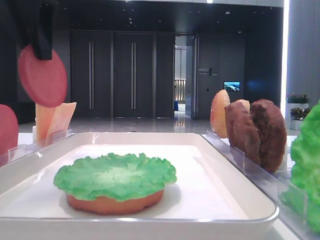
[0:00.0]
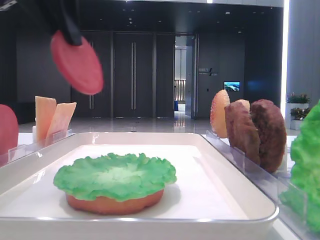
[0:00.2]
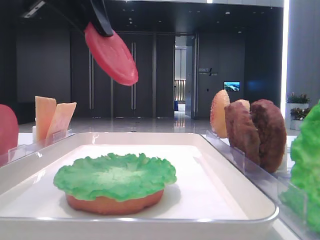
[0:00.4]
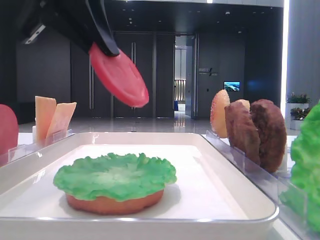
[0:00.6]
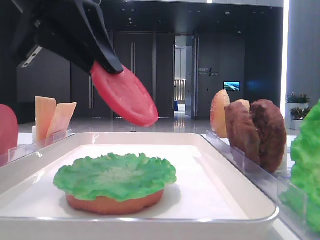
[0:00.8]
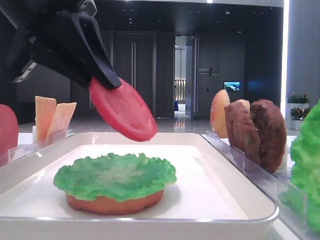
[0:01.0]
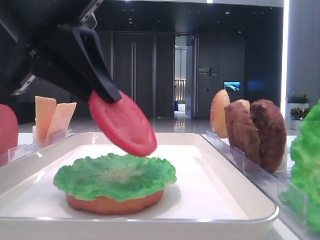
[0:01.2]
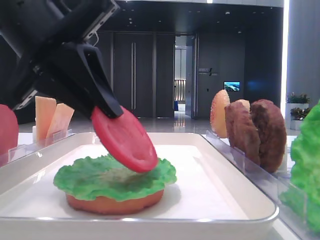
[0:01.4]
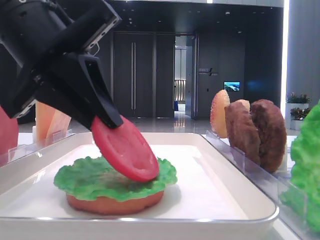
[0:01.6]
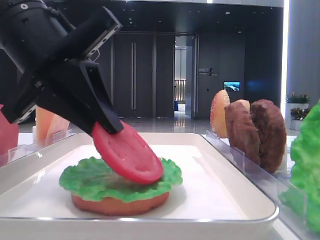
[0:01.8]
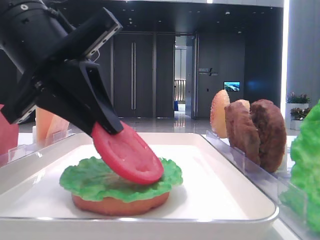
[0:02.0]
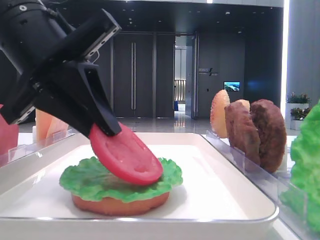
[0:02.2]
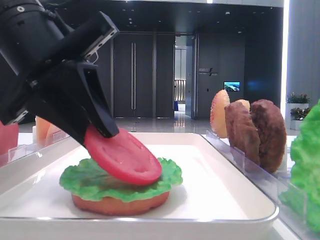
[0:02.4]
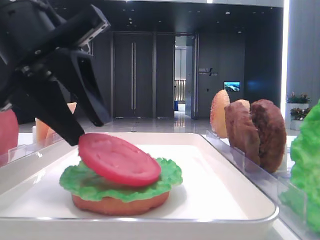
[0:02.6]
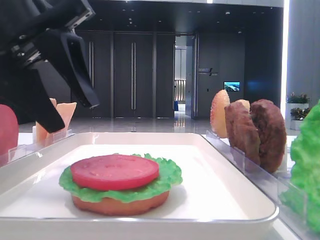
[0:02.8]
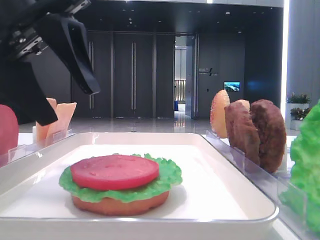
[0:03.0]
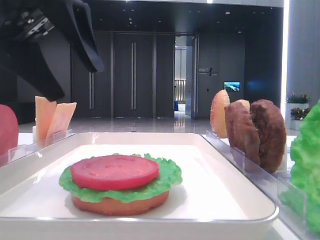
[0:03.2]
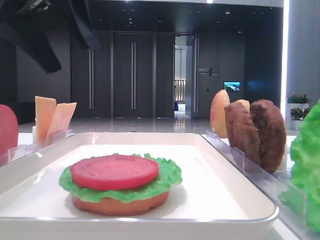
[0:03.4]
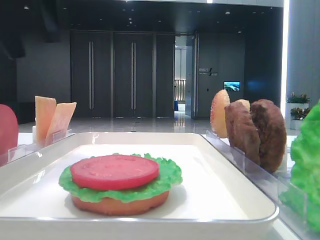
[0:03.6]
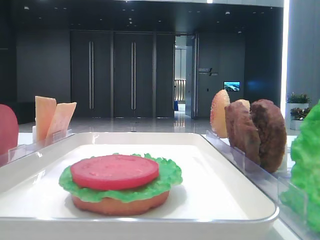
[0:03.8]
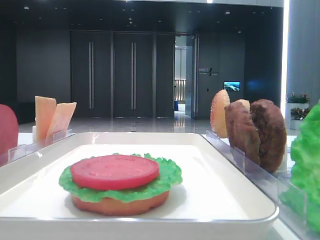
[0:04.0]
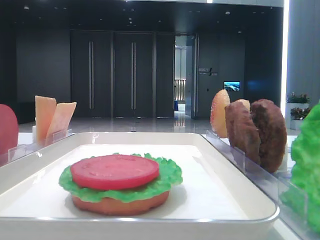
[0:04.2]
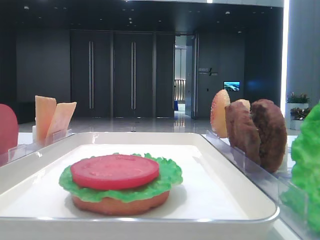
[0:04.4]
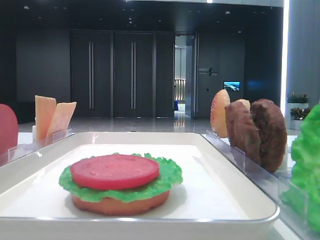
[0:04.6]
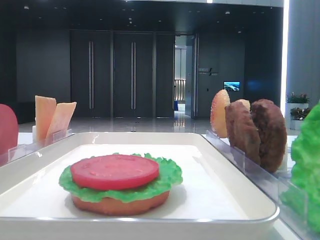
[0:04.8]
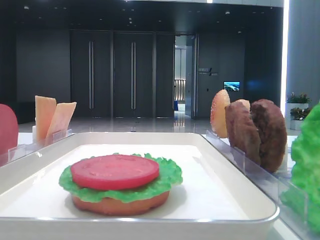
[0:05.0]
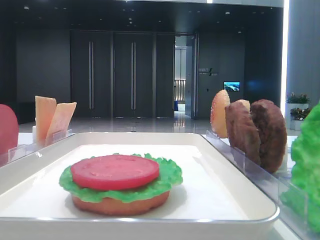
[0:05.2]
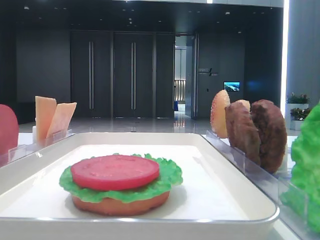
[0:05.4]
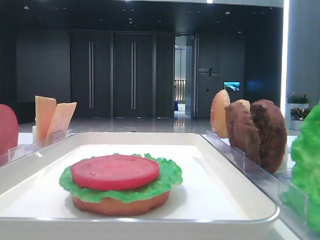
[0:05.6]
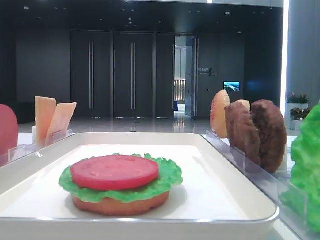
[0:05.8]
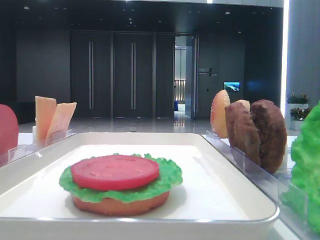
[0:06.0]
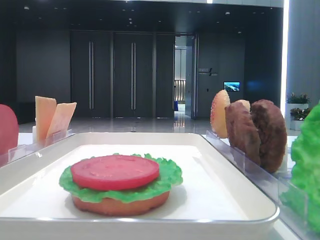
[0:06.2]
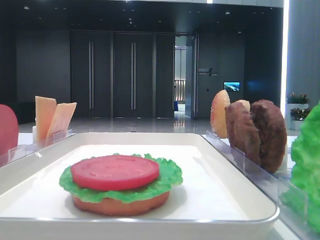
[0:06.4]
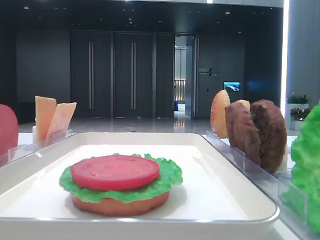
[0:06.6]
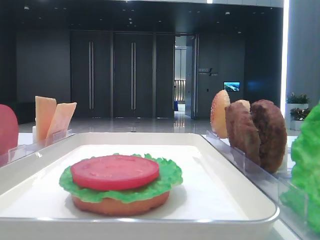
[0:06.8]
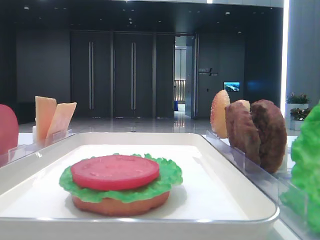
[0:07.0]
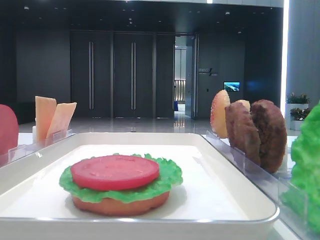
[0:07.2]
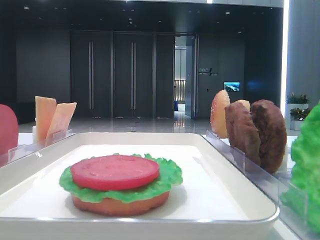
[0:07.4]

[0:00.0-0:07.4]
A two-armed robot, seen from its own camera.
Step, 0.0 to 2.6 s: Place the tomato slice on the lettuce leaf with the left hand.
0.0 to 1.4 s: The left gripper shifts some 10 cm downward.
1.4 to 3.0 s: The left gripper opens up.
3.0 to 4.4 s: The left gripper heads to the left and upward, covering some 20 cm.

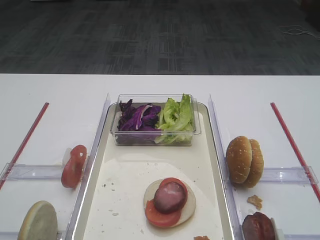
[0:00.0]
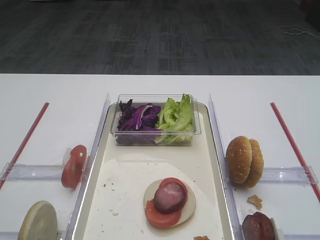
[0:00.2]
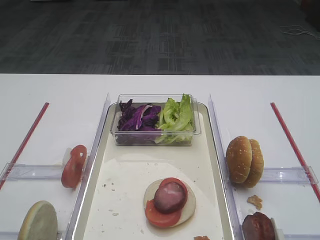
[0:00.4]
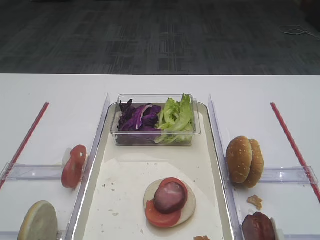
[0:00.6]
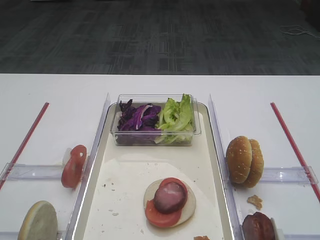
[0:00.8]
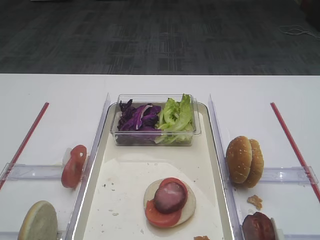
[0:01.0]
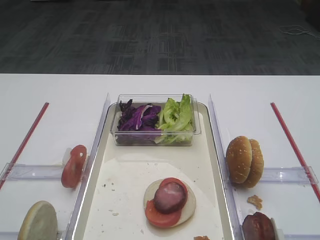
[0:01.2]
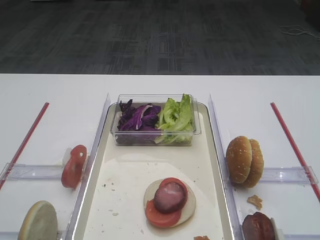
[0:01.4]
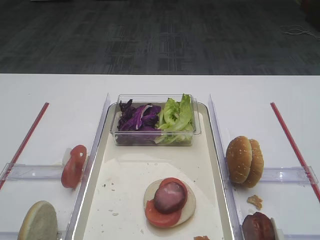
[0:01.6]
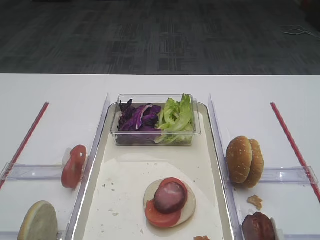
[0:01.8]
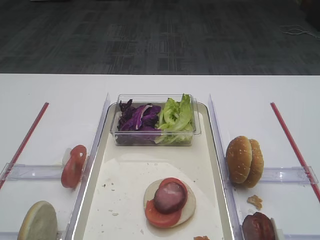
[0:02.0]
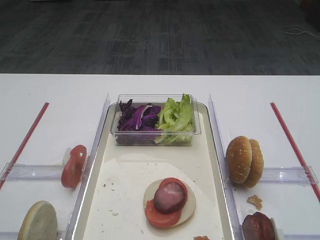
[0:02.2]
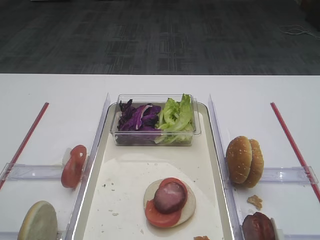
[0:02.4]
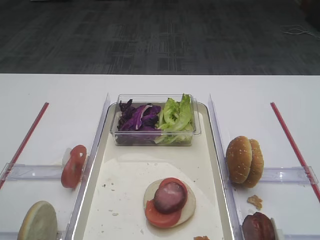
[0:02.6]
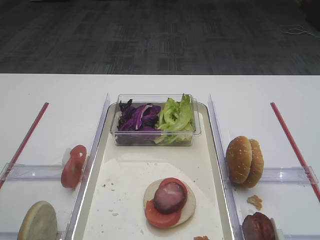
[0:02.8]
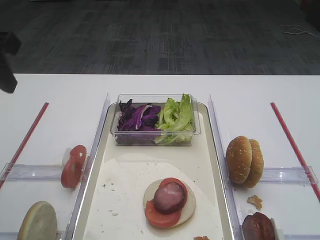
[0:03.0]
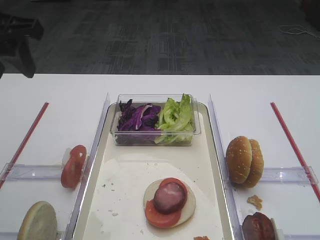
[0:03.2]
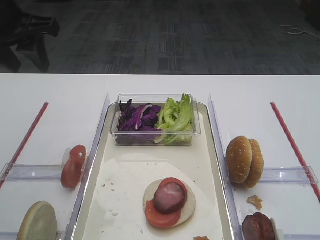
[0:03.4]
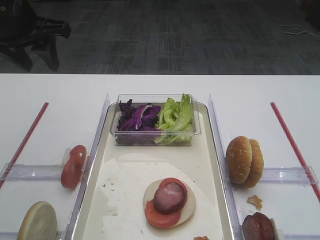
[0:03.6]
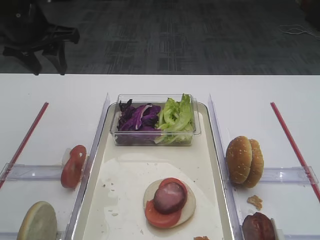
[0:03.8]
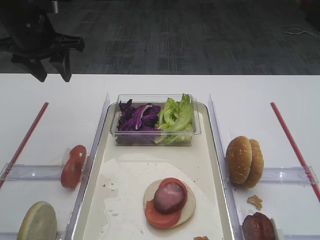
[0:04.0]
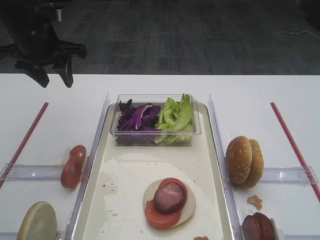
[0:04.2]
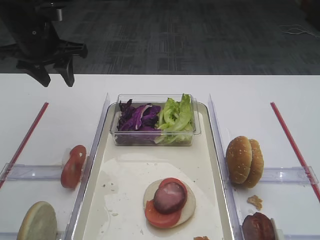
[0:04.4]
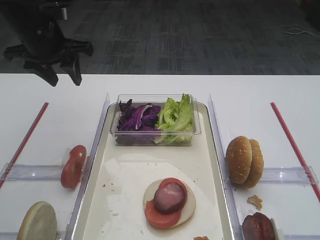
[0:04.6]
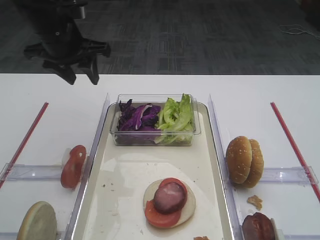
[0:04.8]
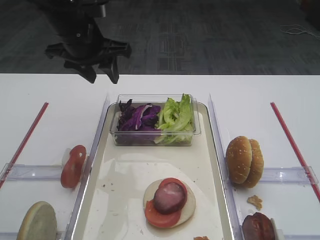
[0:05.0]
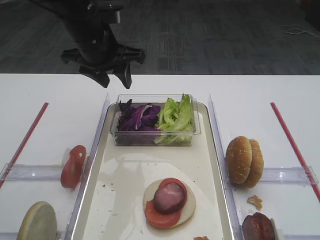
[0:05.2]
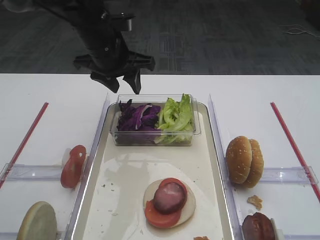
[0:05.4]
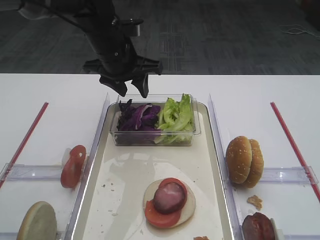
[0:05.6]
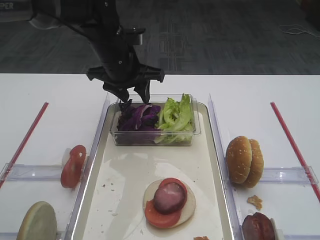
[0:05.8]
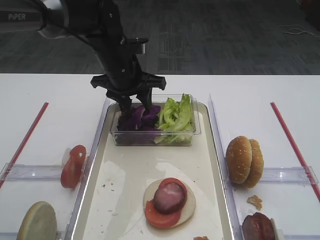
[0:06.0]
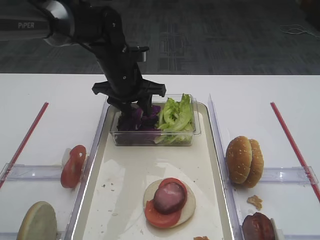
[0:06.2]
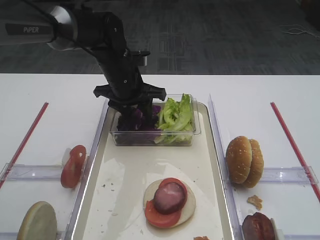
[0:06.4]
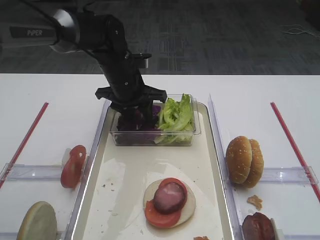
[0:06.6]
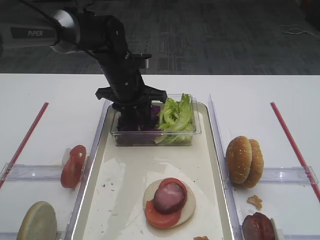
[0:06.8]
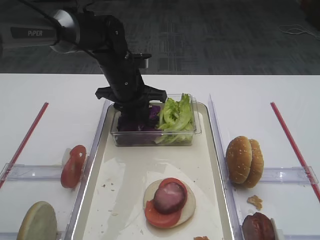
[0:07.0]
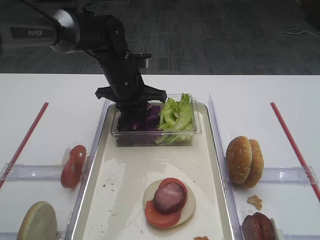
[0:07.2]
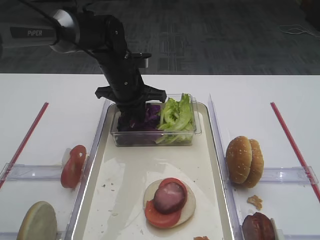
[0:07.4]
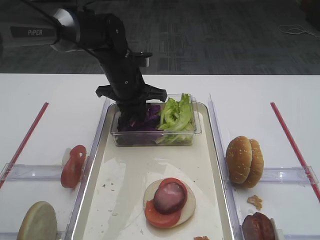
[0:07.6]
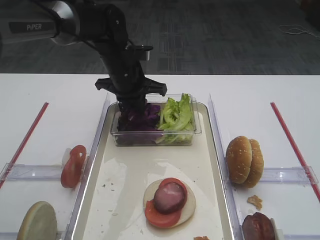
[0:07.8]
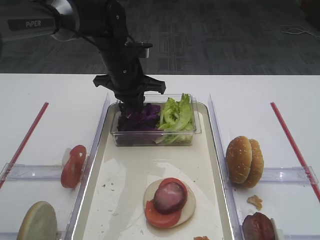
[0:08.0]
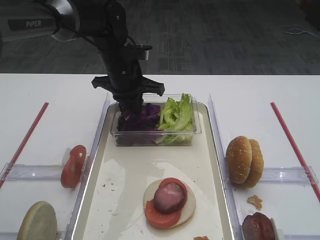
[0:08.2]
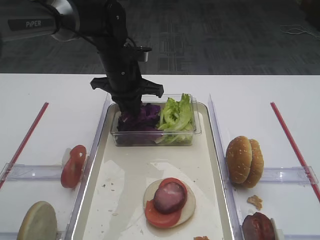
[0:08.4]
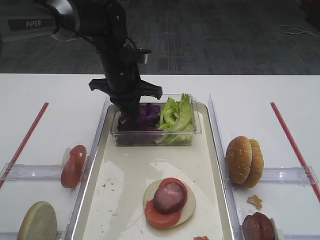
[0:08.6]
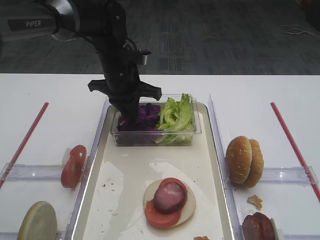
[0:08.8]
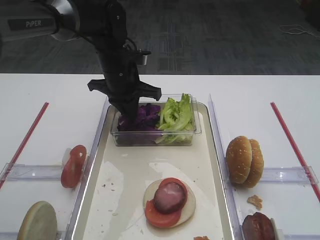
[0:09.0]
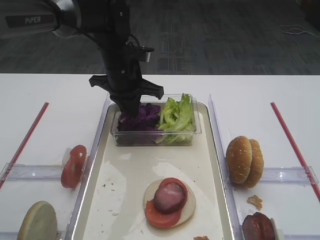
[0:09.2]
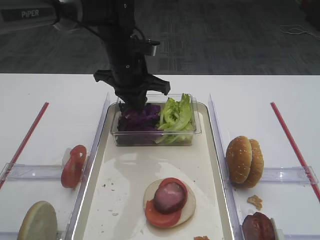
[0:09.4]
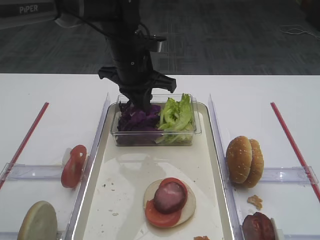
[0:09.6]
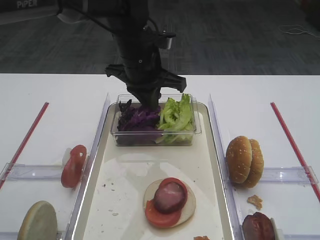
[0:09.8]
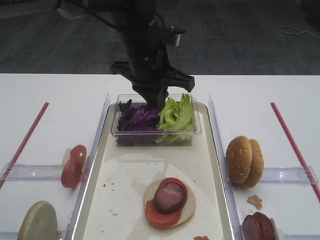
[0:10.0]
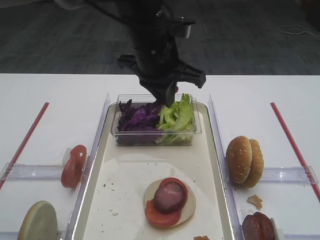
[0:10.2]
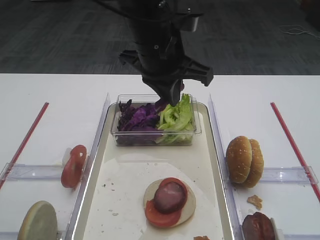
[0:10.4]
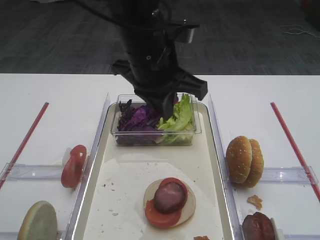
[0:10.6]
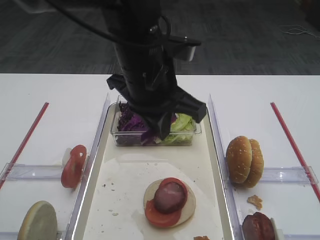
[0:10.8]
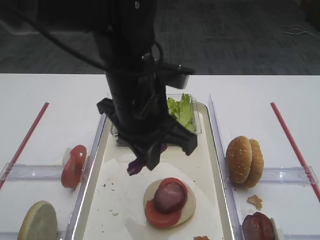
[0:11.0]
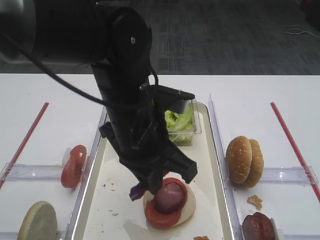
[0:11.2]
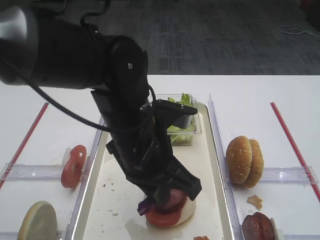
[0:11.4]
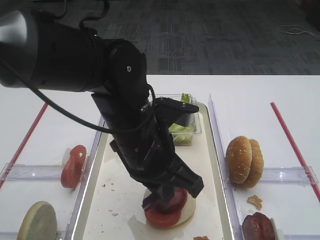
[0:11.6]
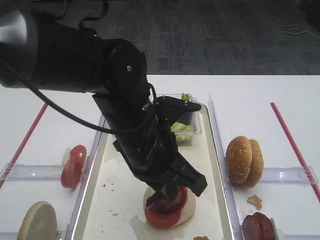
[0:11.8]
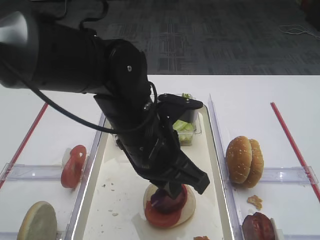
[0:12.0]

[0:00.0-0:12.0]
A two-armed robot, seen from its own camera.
Step, 0.0 to 10.2 s: Pick up the purple cabbage with the left gripper.
1.6 to 3.0 s: The left gripper heads forward, covering about 25 cm.
3.0 to 4.4 s: The left gripper goes about 20 cm forward and downward.
4.4 to 6.0 s: The left gripper goes about 15 cm to the right and downward.
6.0 to 7.6 s: The left gripper closes.
7.6 to 9.0 s: There are only small adjustments of the grippers.
9.0 to 10.4 s: The left gripper travels upward, backward and to the right by approximately 15 cm.
10.4 to 12.0 s: The left gripper travels backward and downward by about 15 cm.

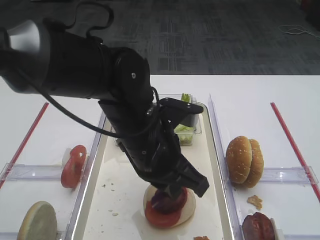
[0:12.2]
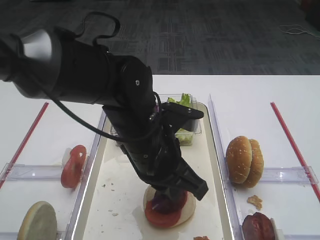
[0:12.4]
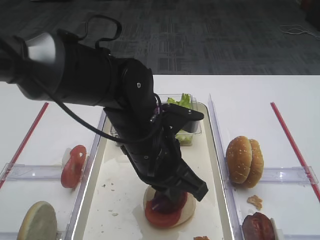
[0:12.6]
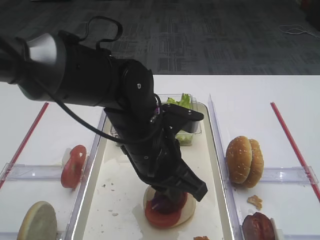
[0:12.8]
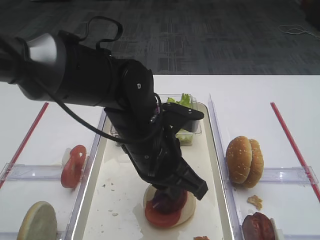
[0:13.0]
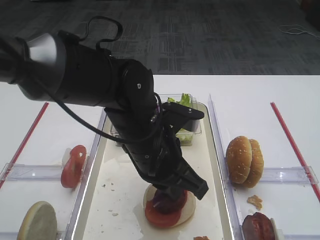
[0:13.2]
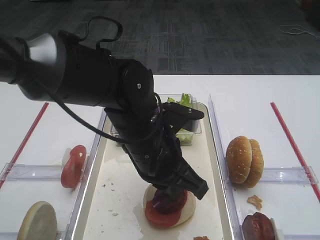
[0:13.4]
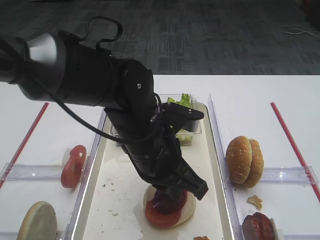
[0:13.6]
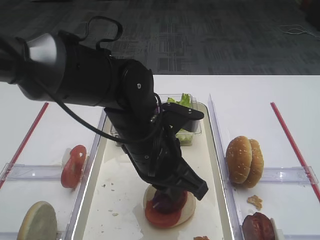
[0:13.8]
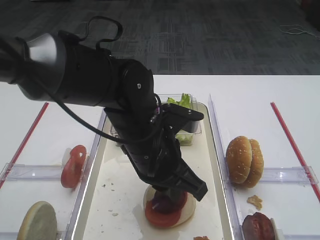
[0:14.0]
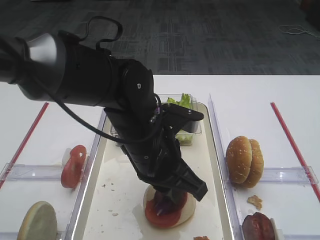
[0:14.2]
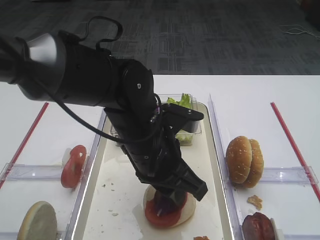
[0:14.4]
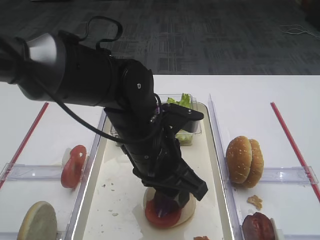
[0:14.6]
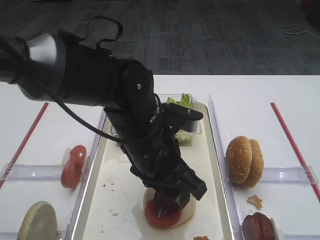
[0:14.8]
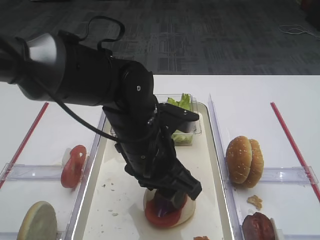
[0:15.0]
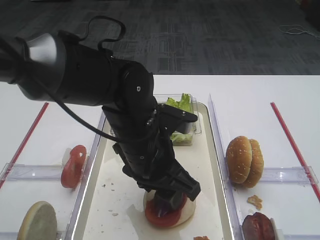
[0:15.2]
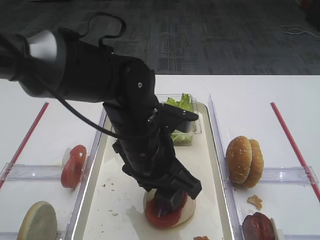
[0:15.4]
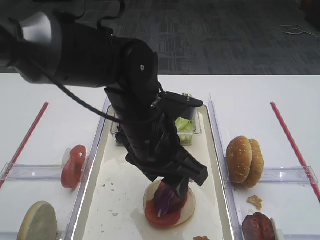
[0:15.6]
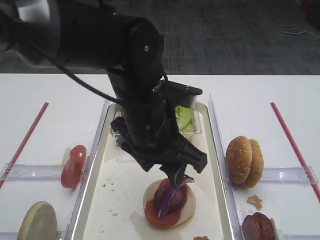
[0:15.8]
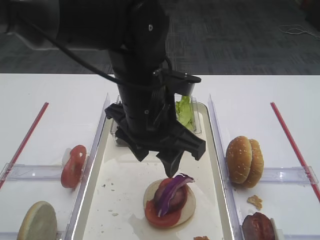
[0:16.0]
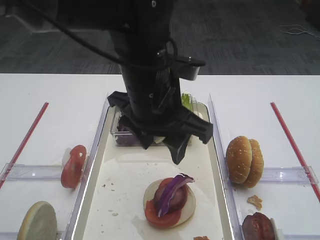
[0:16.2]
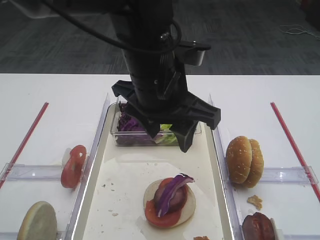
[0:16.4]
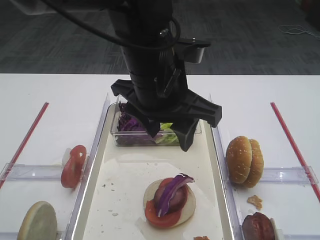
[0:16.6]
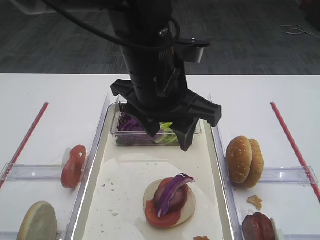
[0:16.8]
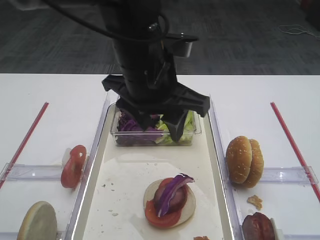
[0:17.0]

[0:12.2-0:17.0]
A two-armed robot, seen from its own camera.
Step, 12.2 to 16.8 s: Place the purple cabbage on the cutlet with the left gripper.
12.2 to 13.8 s: The grippers stay close to where they were, moving slightly.
13.8 to 15.4 s: The left gripper opens its fingers.
15.4 to 17.0 s: The left gripper travels upward by roughly 10 cm.
